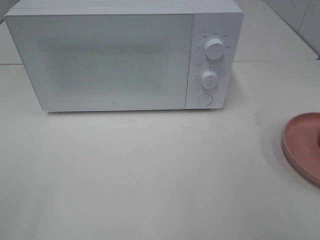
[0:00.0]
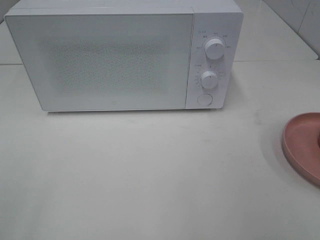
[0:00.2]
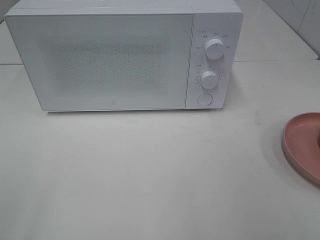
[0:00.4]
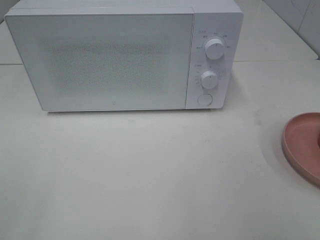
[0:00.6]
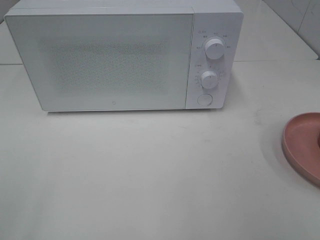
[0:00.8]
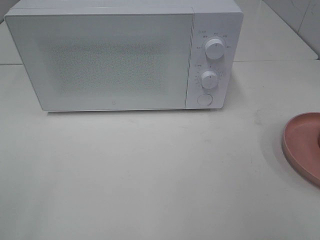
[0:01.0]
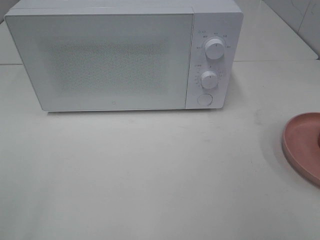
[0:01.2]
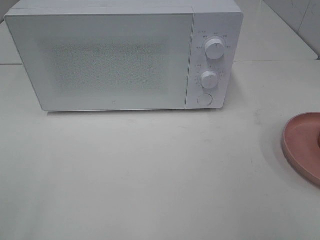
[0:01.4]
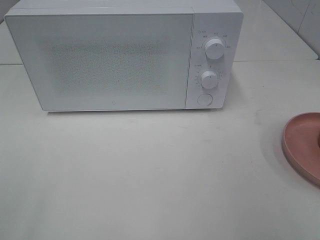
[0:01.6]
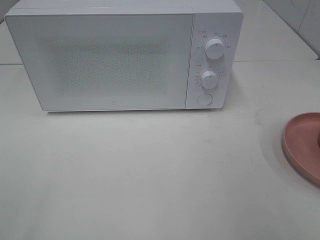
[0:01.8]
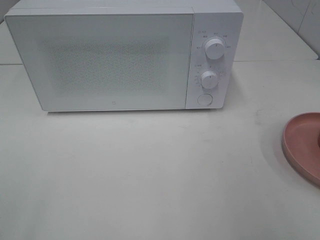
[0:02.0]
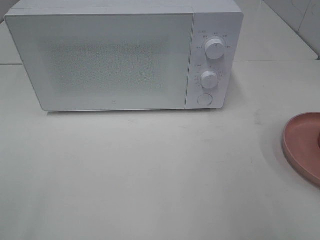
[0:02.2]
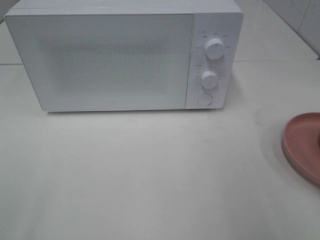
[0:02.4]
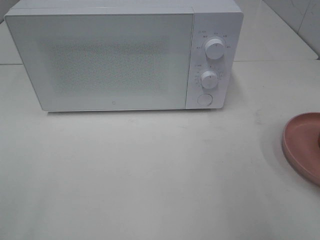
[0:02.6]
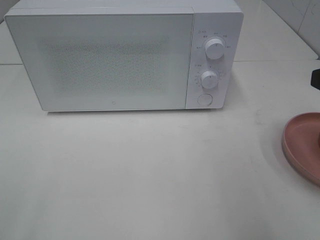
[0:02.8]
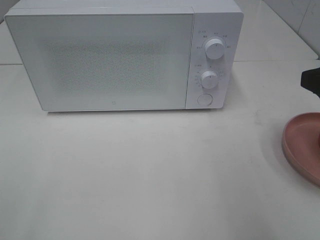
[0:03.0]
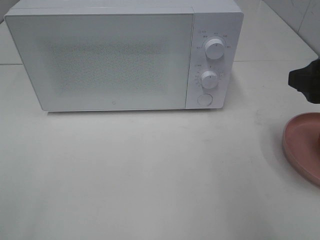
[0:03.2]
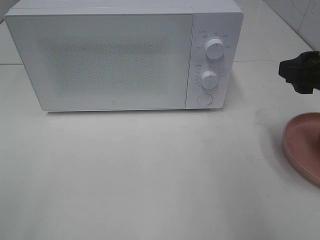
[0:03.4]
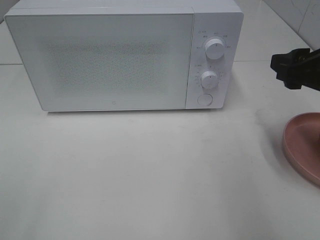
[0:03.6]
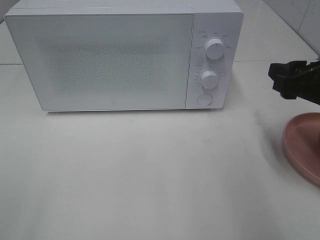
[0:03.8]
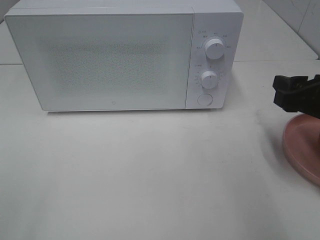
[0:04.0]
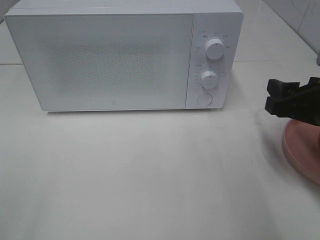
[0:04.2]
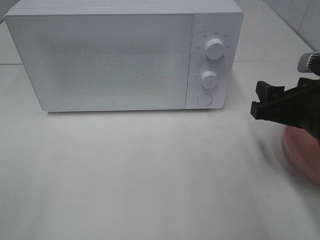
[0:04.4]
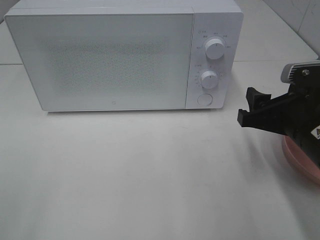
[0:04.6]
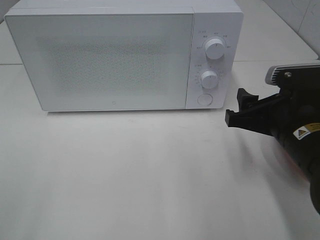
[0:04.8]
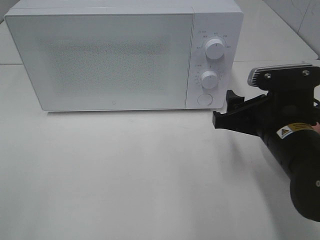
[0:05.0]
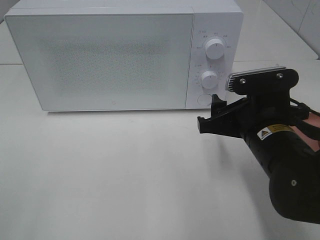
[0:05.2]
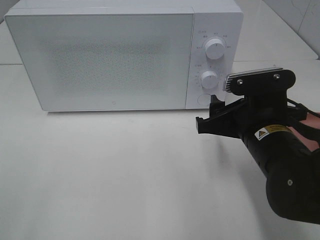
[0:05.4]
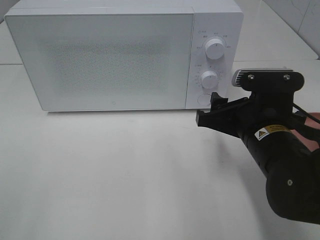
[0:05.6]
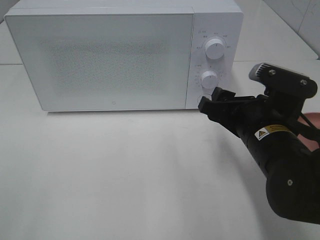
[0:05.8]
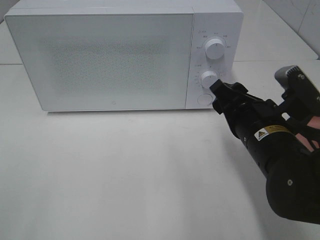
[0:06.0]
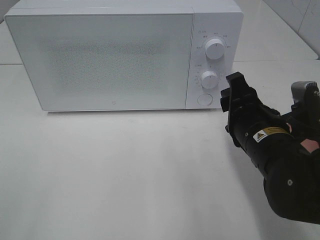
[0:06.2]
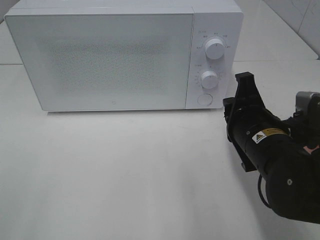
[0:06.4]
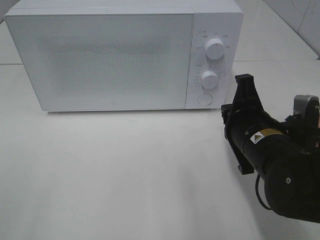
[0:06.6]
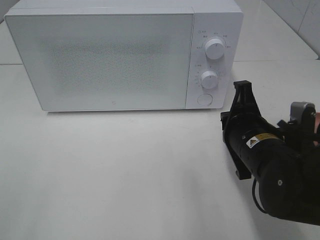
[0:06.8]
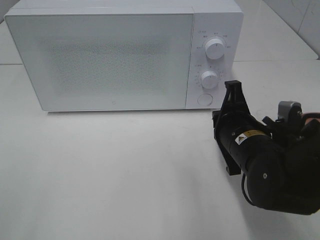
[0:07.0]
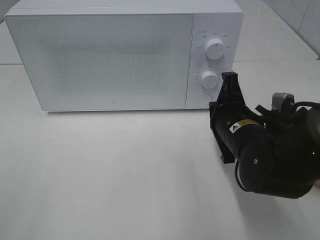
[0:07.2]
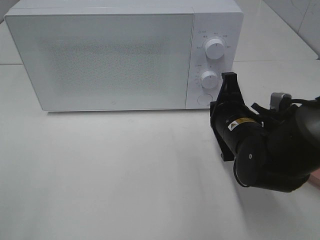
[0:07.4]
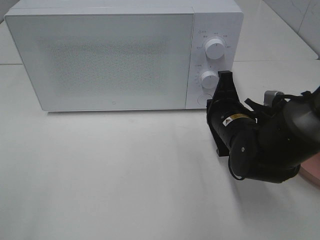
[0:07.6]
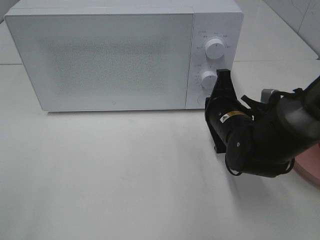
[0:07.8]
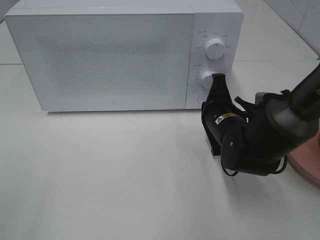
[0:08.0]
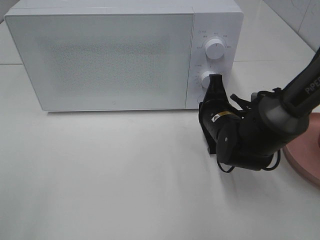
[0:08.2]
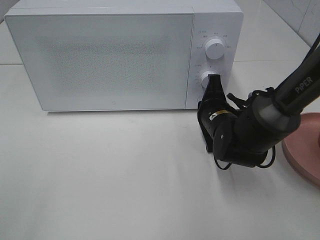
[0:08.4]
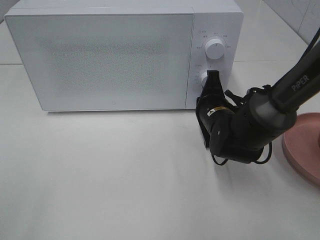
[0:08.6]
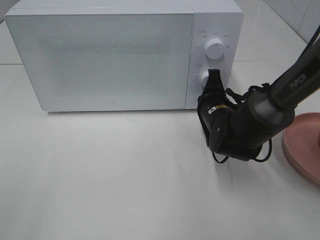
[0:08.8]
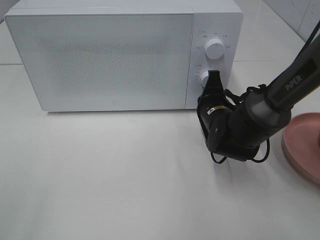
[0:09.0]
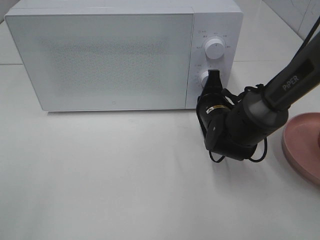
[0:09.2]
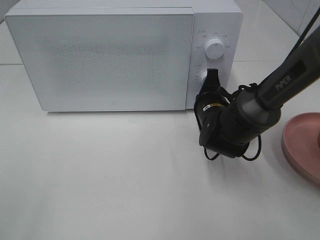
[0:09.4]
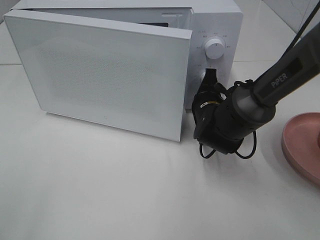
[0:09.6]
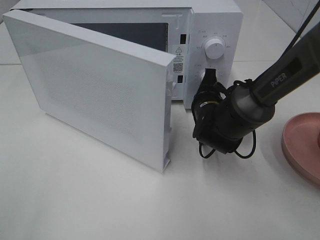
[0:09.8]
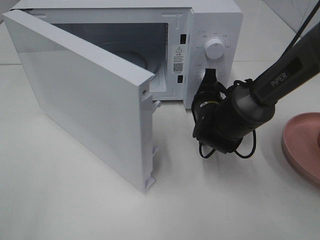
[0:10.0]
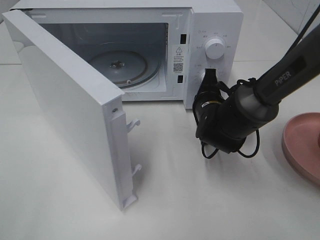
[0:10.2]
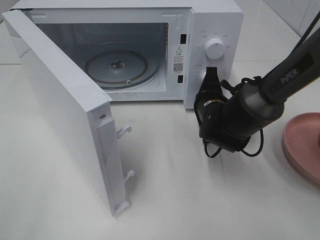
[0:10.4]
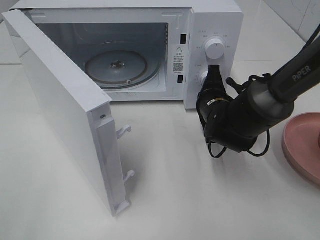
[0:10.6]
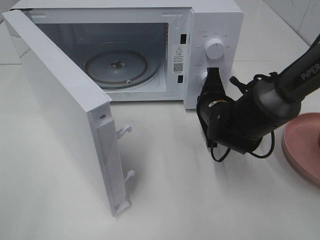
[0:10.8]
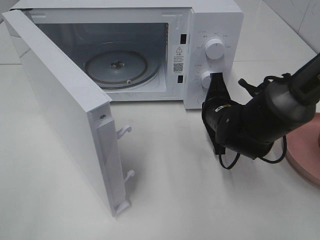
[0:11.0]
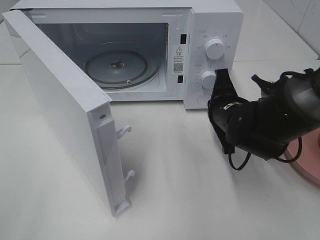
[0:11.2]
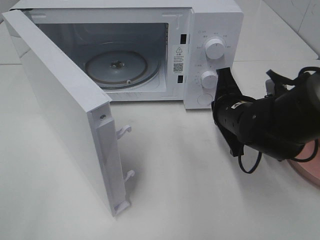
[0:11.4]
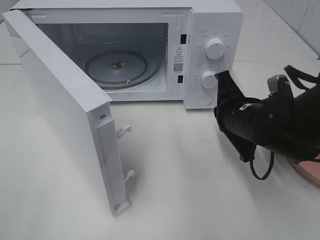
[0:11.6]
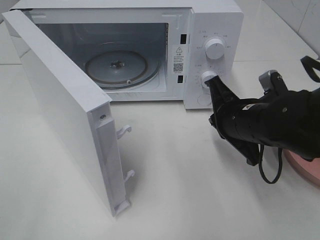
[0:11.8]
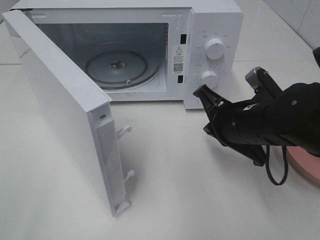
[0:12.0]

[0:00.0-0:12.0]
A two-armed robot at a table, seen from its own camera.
Task of the whole recording: Heat the burger.
Step, 0:00.0 to 0:10.6: Right hand: press the switch.
0:01.6 to 0:03.0: The right gripper heads forward, covering about 15 cm.
0:03.0 to 0:04.4: The right gripper goes about 10 cm downward.
0:04.4 to 0:06.0: The right gripper moves to the left, approximately 10 cm.
0:06.0 to 0:07.6: The right gripper moves forward, some 5 cm, and closes its fingers.
0:07.6 to 0:09.0: The right gripper shifts approximately 5 cm forward.
0:10.4 to 0:12.0: The right gripper goes approximately 10 cm backward and upward.

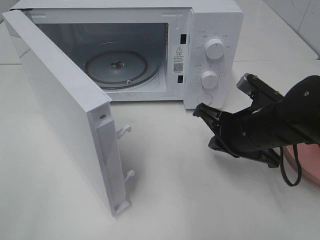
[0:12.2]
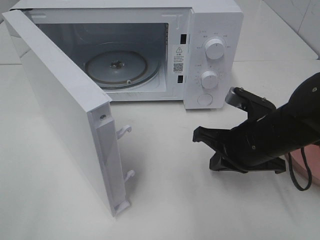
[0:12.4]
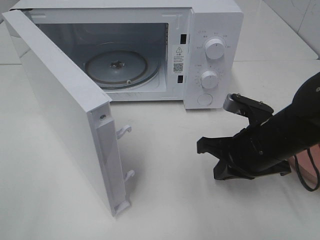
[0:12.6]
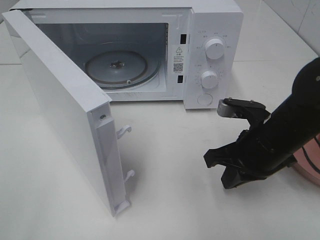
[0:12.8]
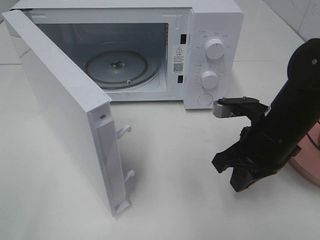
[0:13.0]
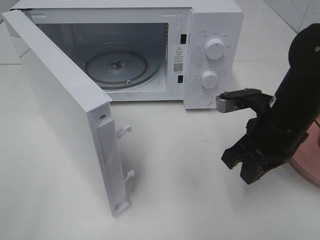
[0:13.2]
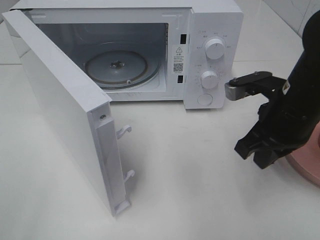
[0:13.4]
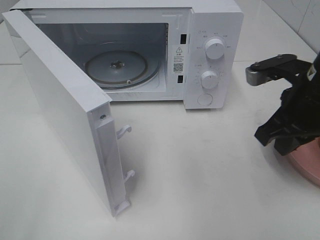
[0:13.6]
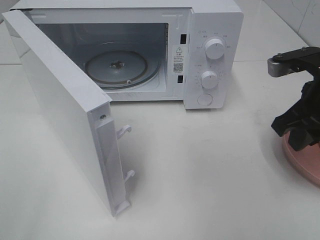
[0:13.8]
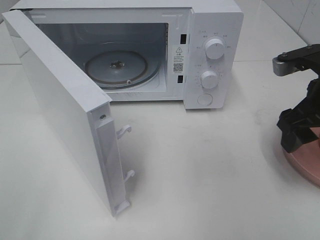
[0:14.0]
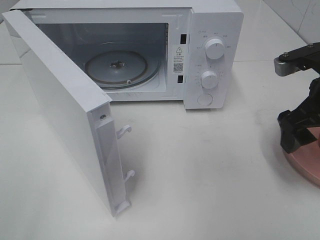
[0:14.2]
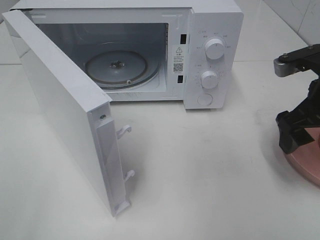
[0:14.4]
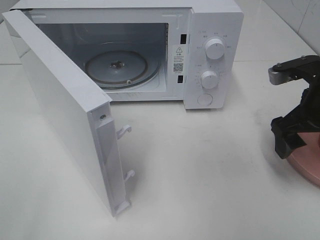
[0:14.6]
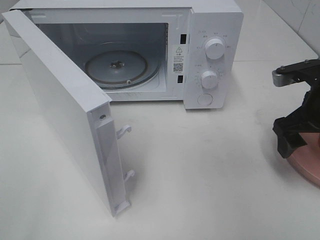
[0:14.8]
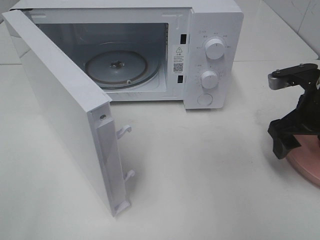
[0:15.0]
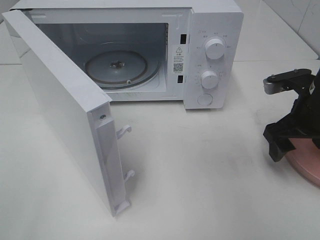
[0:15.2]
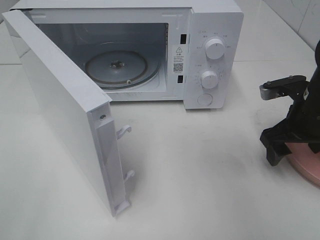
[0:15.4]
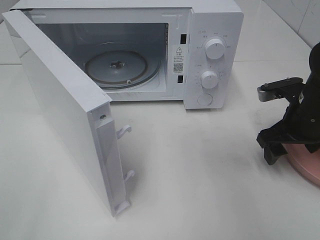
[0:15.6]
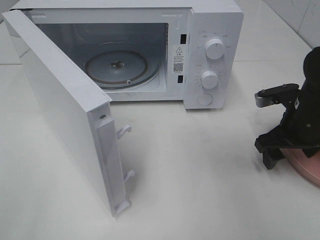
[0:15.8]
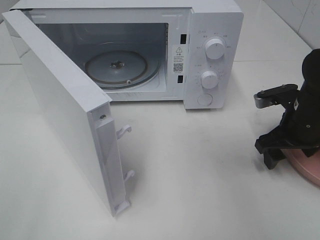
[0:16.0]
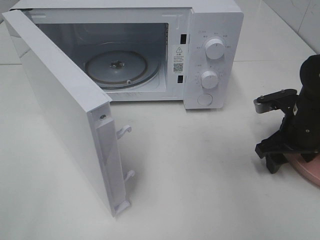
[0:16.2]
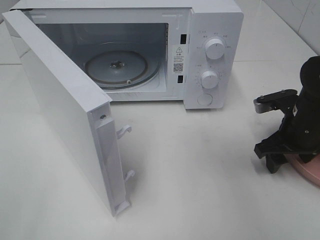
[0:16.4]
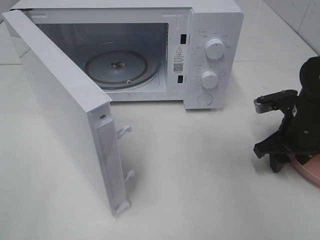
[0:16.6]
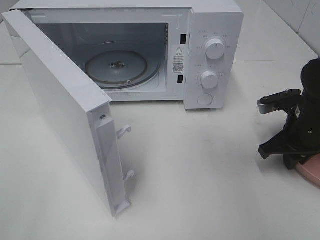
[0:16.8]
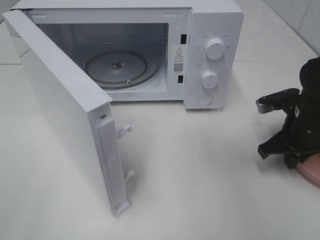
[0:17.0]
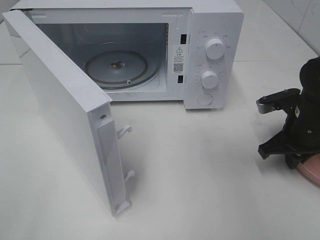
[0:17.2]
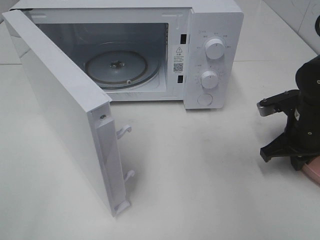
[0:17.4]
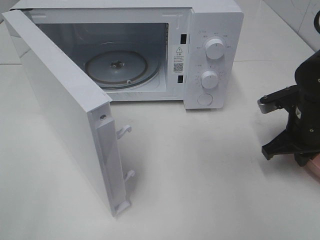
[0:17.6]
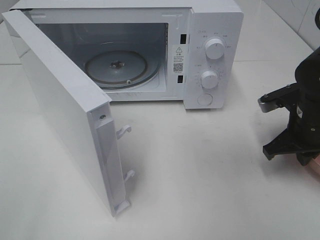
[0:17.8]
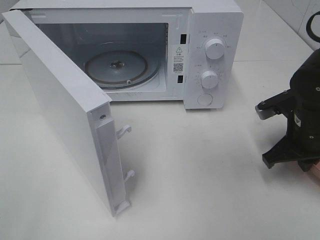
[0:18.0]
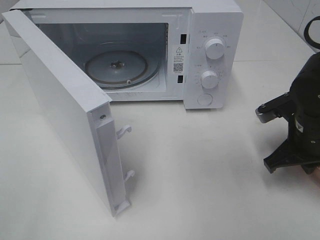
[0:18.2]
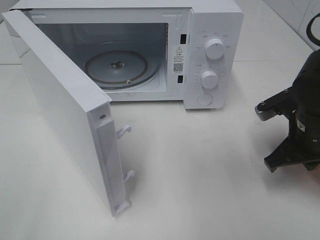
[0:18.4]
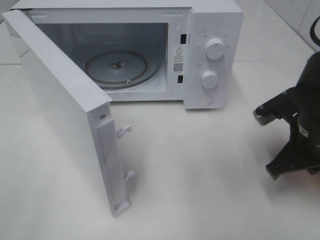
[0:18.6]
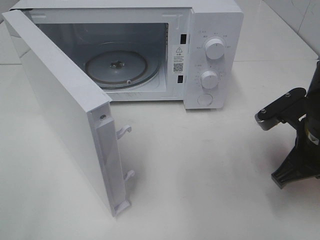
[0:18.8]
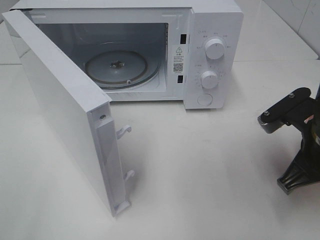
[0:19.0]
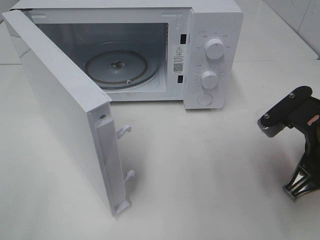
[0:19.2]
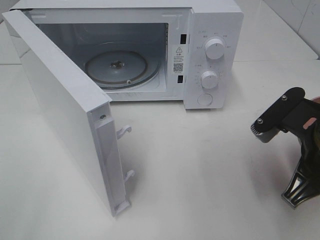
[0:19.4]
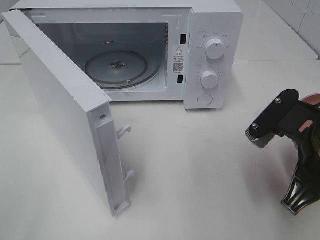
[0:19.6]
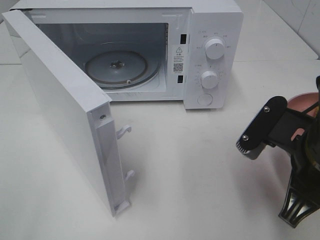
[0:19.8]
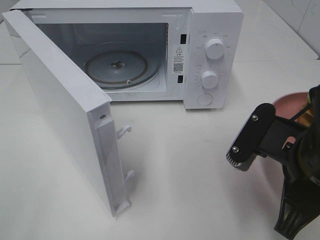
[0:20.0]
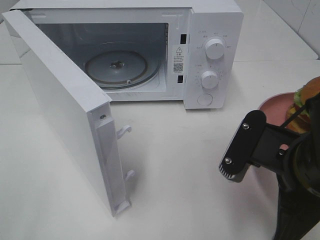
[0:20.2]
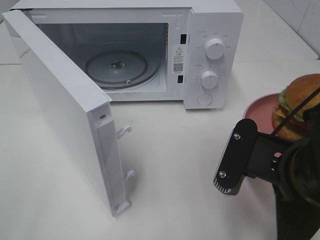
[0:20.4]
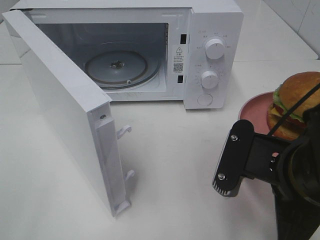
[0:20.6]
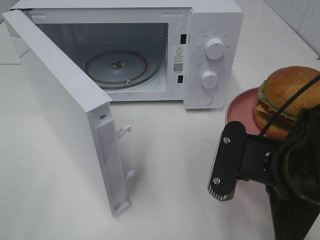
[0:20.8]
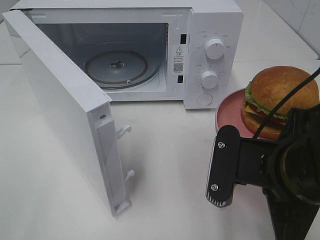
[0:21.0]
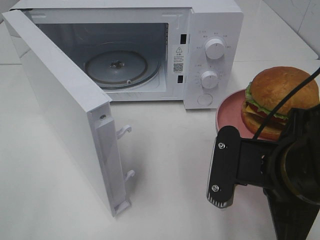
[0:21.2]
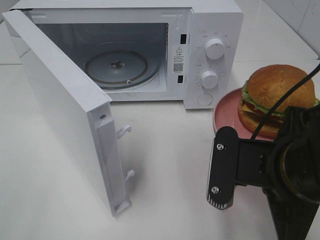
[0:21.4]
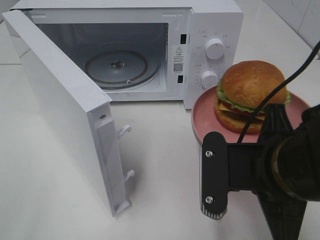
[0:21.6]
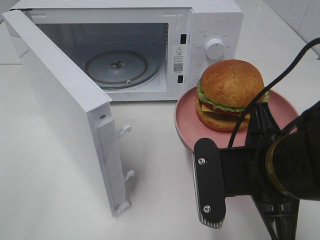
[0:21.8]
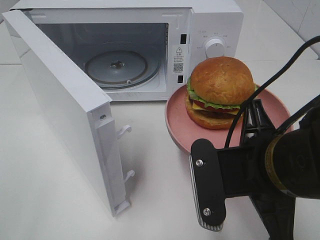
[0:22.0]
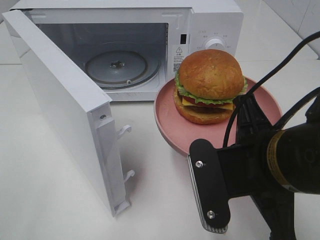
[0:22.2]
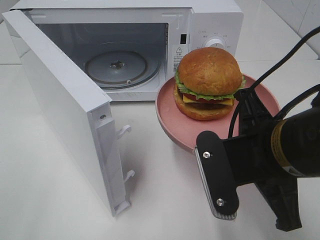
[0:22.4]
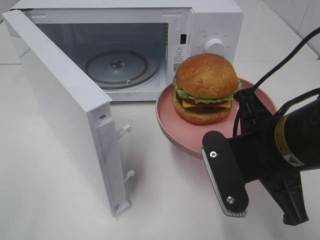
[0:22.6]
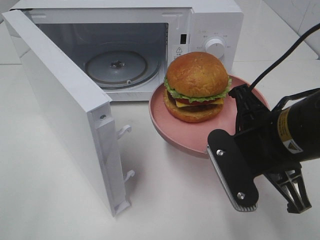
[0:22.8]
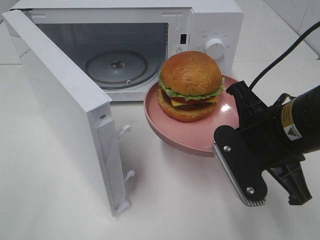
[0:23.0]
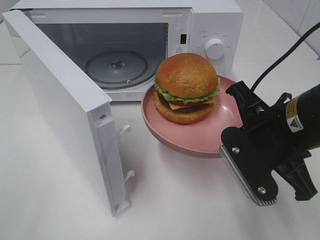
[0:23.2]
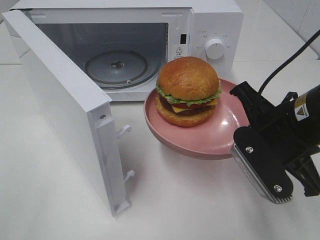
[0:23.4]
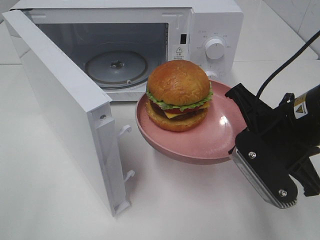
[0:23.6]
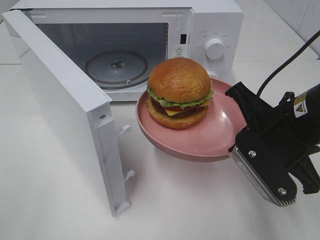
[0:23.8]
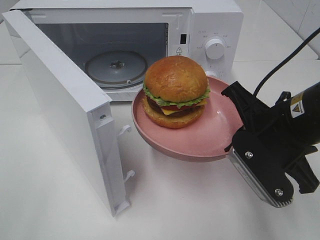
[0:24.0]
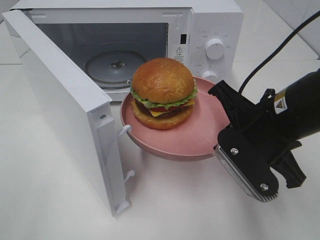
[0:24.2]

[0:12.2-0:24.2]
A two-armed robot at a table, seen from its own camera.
Task of the whole recording: Heat the burger.
Step, 0:12.2 to 0:17.4: Right hand: grab the plate with the hamburger.
0:12.2 to 0:13.8: The right gripper shifts about 10 cm upward and to the right, and opens up.
0:13.8 to 0:15.2: The right gripper travels downward by about 5 cm, and opens.
0:15.2 to 0:16.6: The right gripper is displaced downward by roughly 5 cm.
0:16.6 to 0:18.2: The right gripper closes its fingers.
0:18.2 to 0:19.8: The right gripper goes roughly 15 cm backward, to the left and upward.
0:22.6 to 0:24.2: The right gripper moves approximately 5 cm.
